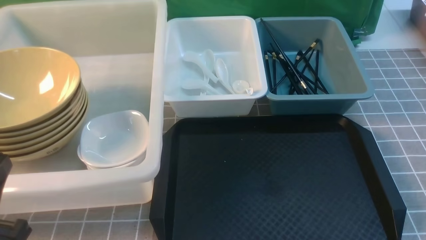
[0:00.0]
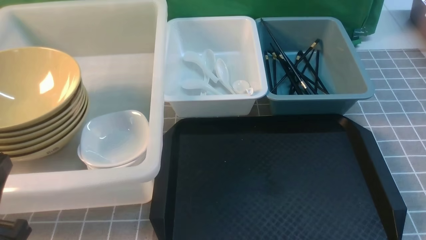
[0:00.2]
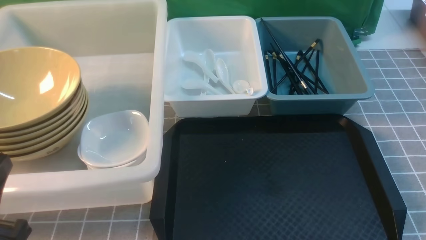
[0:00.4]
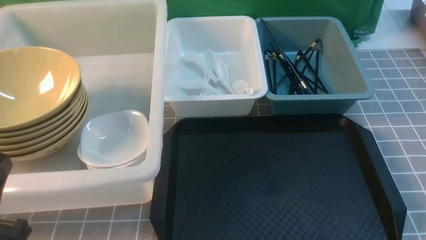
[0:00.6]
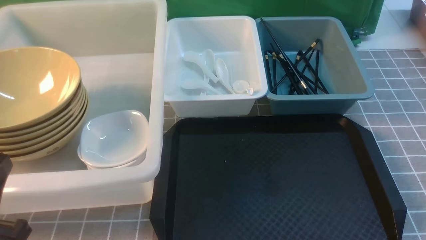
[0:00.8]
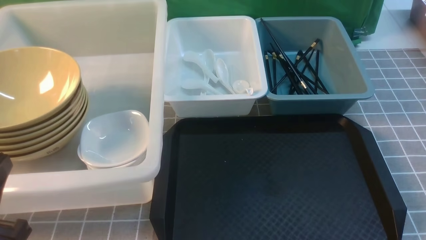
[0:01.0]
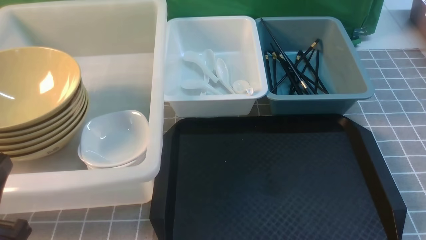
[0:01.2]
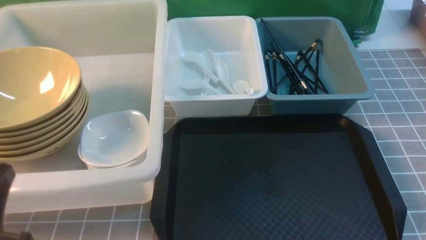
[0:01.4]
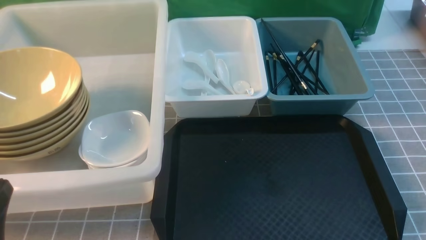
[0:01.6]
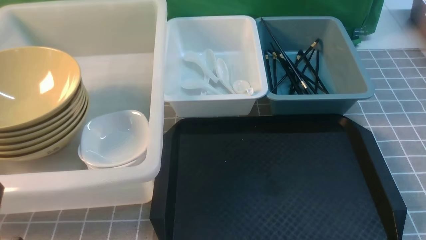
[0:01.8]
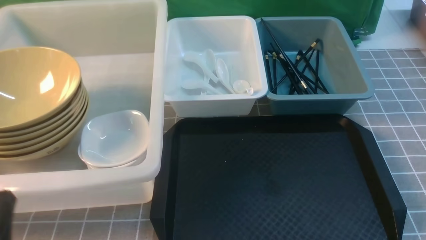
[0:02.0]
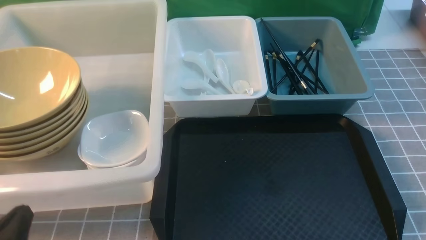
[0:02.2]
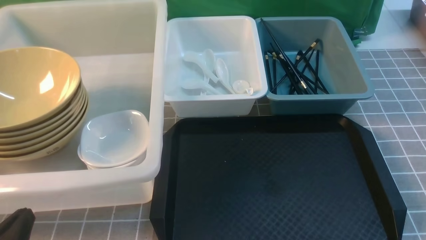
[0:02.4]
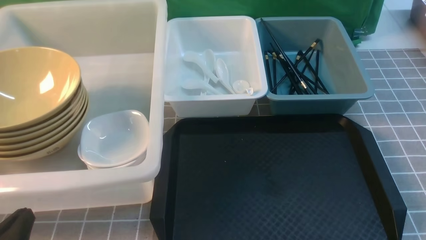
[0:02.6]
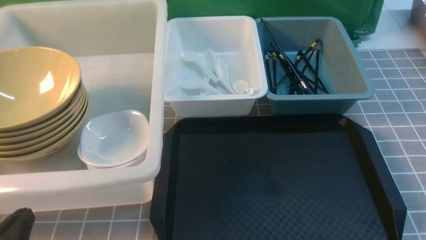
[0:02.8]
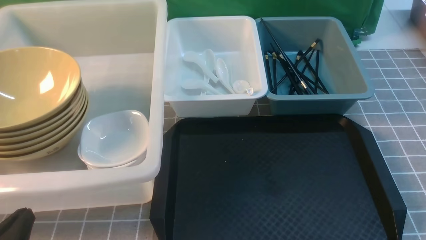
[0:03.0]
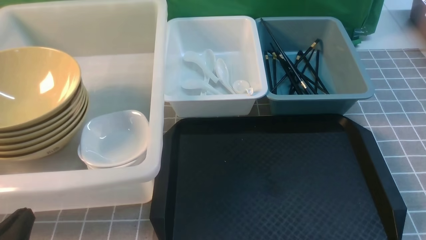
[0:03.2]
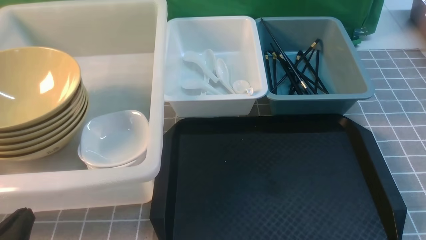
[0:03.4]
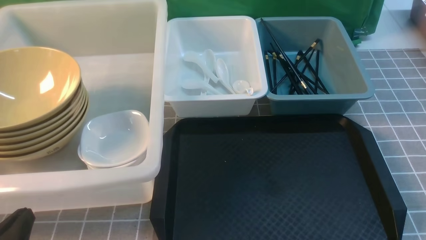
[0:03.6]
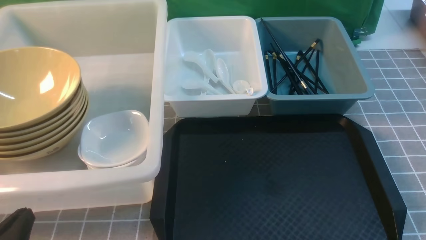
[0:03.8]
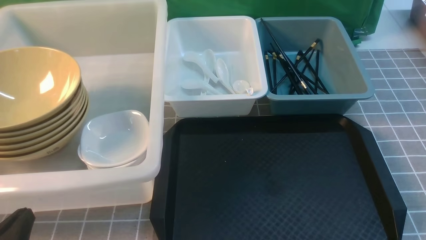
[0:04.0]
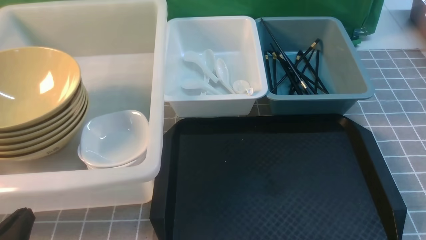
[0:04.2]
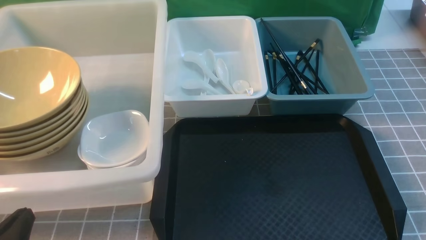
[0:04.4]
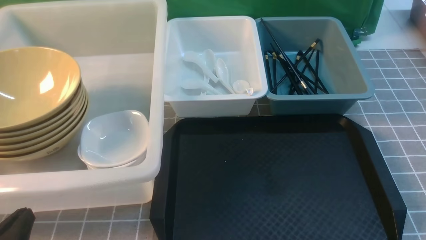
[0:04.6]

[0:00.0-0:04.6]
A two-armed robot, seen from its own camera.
Task of the whole recording: on grey table put chopsticks spoon bowls plates into blue grey white boxes.
0:00.0 to 0:01.6: The grippers stay close to where they were, moving slightly.
0:01.6 to 0:03.0: The grippers stay close to where they were, moving slightly.
0:03.0 to 0:04.6: The two grippers keep their place.
